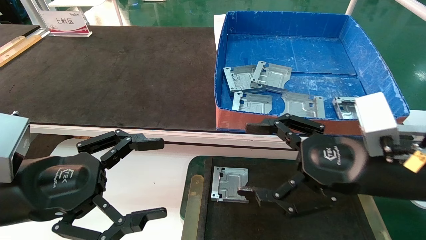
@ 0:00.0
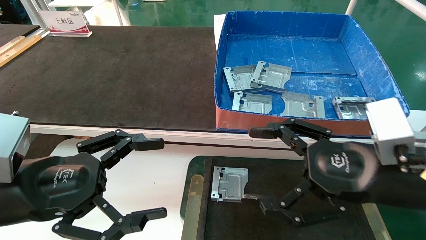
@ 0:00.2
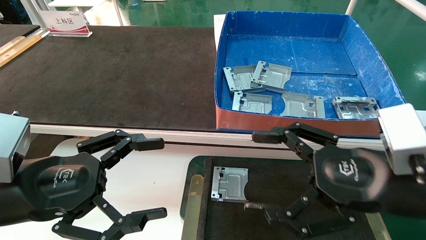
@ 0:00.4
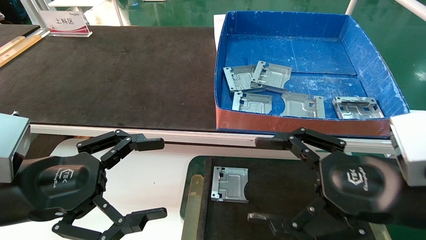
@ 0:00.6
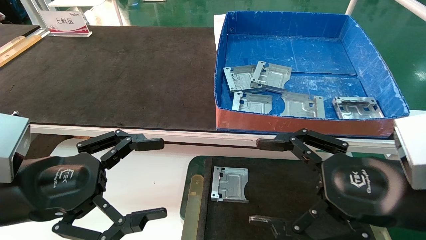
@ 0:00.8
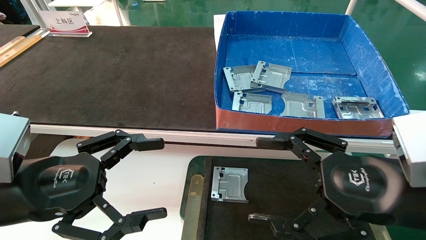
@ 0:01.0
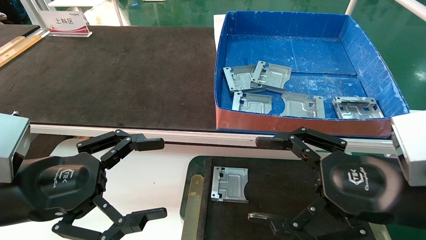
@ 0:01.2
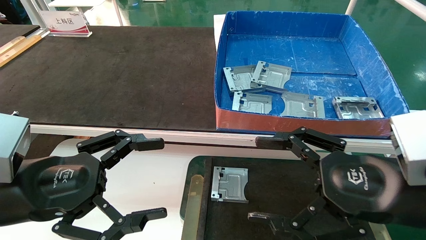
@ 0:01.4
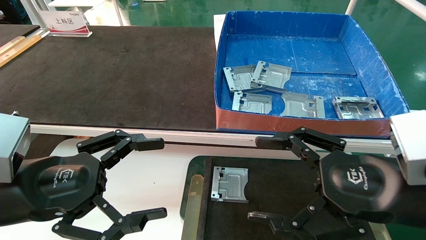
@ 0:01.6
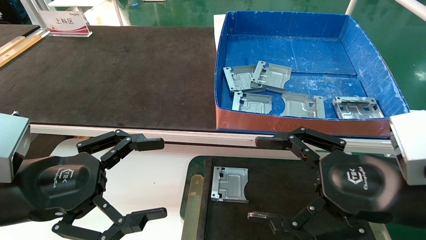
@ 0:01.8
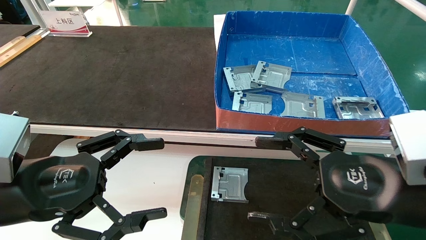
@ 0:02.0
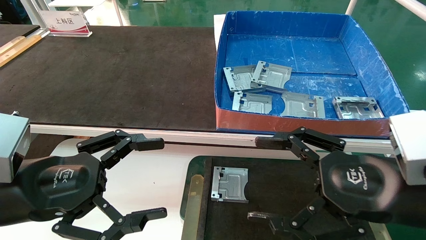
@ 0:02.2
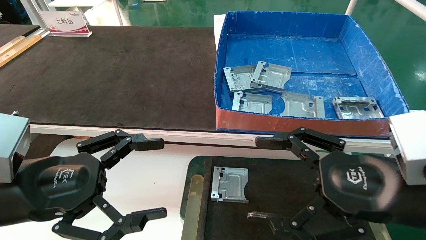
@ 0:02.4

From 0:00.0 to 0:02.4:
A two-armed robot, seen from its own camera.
Task of the whole recording: pick up parts and place them into a black container.
From 0:00.0 to 0:01.2: The grippers stay close to where they were, moving slightly.
From 0:01.2 to 0:02.4: The two grippers keep their place.
